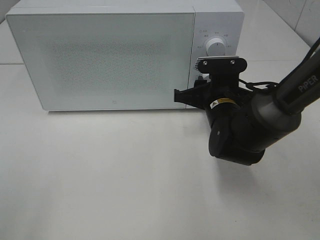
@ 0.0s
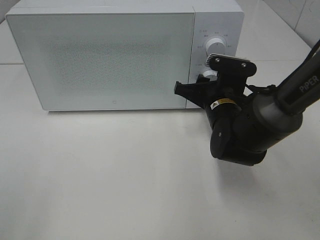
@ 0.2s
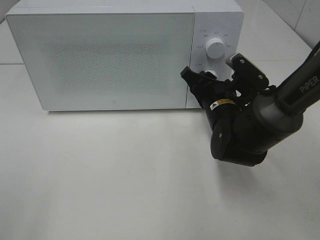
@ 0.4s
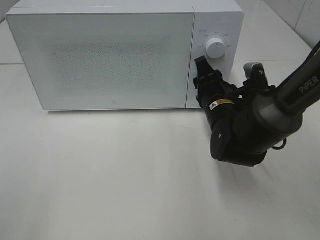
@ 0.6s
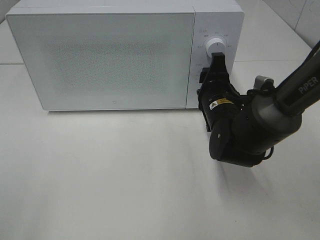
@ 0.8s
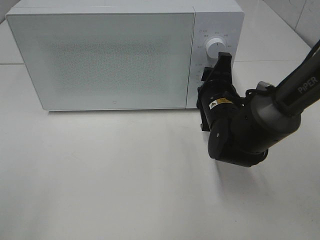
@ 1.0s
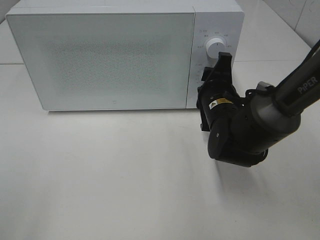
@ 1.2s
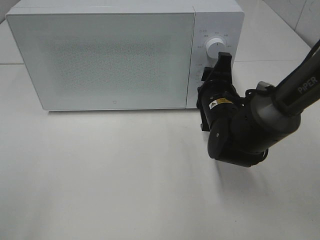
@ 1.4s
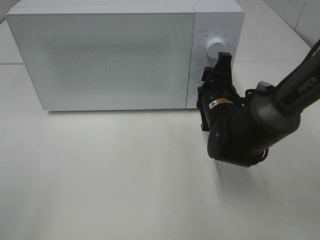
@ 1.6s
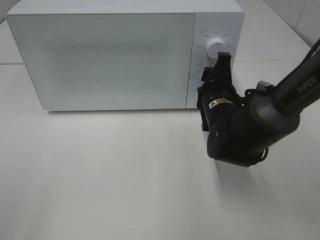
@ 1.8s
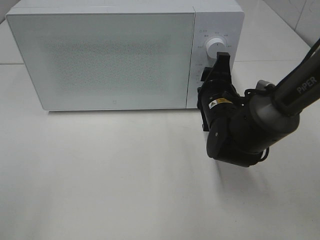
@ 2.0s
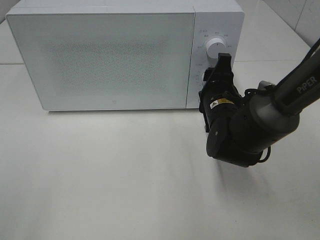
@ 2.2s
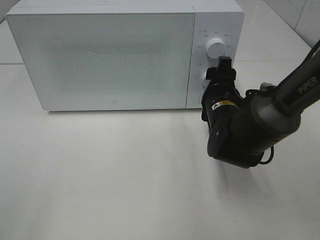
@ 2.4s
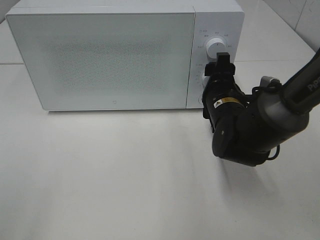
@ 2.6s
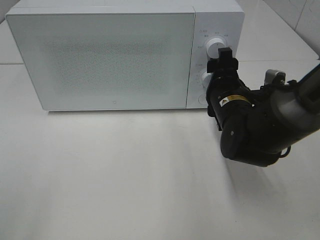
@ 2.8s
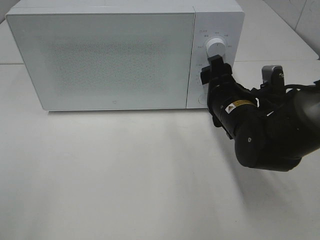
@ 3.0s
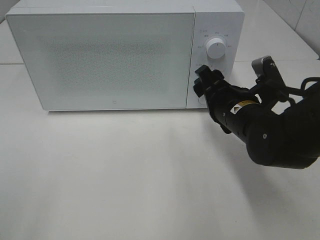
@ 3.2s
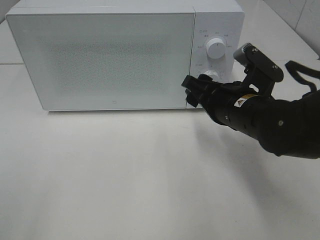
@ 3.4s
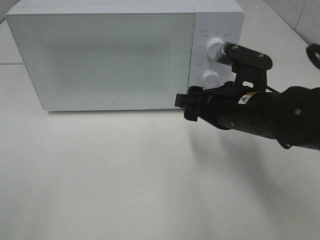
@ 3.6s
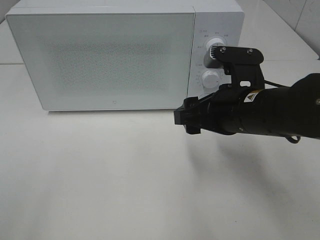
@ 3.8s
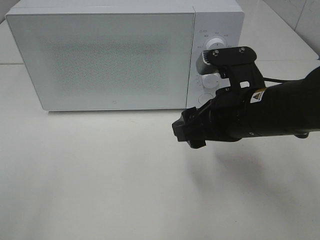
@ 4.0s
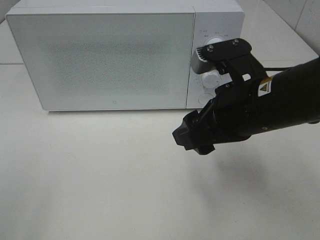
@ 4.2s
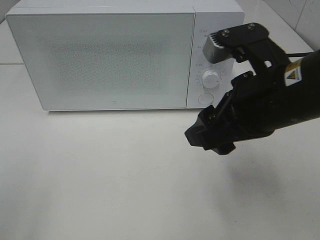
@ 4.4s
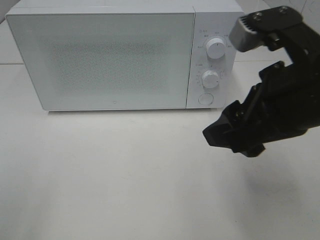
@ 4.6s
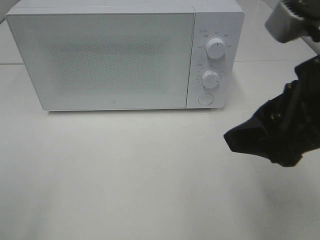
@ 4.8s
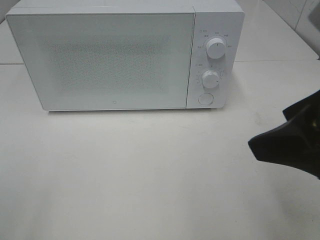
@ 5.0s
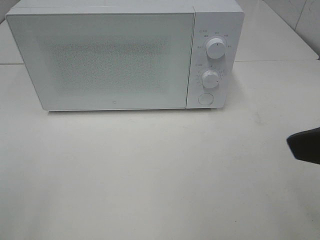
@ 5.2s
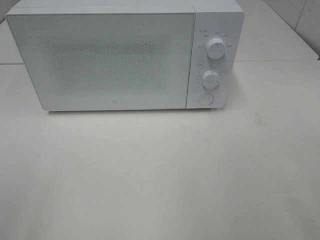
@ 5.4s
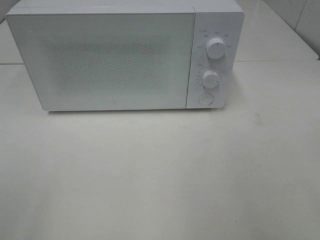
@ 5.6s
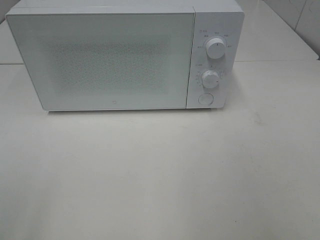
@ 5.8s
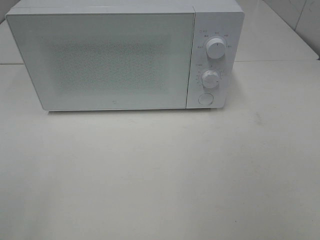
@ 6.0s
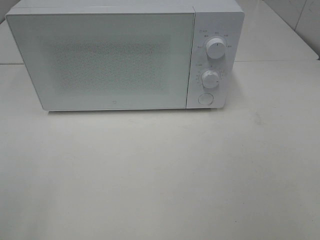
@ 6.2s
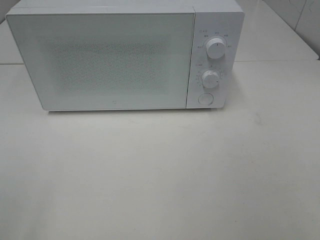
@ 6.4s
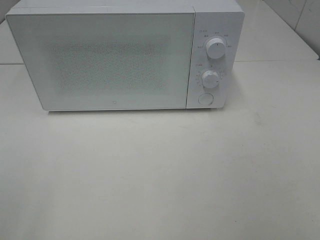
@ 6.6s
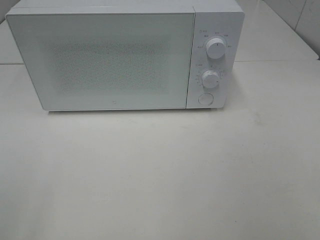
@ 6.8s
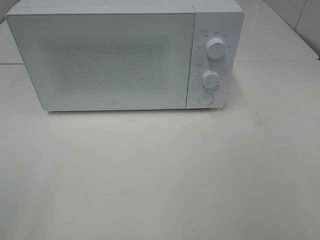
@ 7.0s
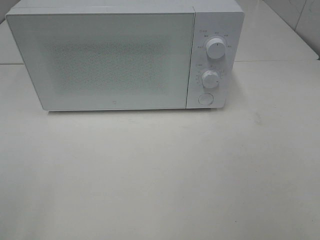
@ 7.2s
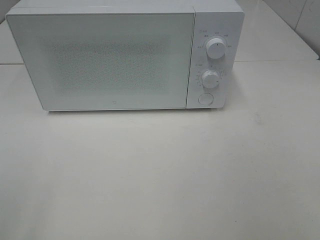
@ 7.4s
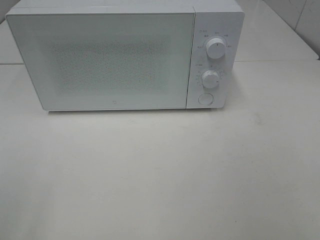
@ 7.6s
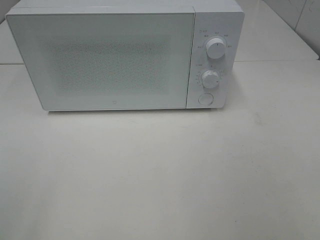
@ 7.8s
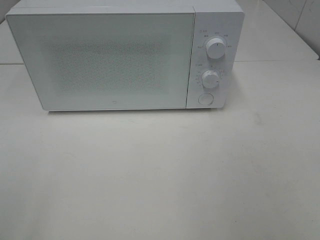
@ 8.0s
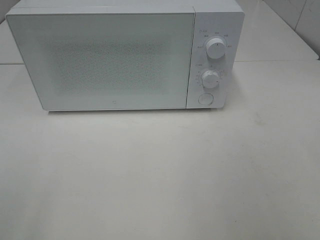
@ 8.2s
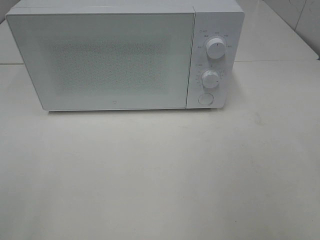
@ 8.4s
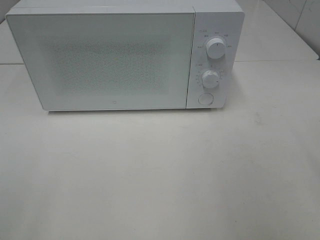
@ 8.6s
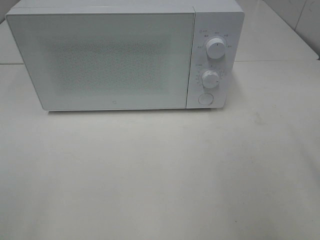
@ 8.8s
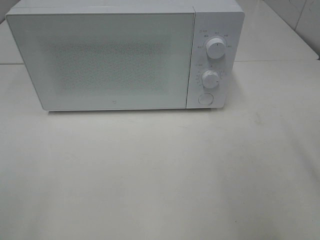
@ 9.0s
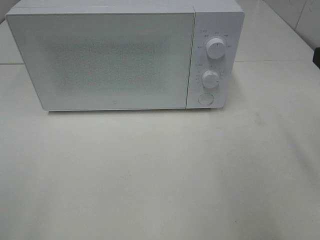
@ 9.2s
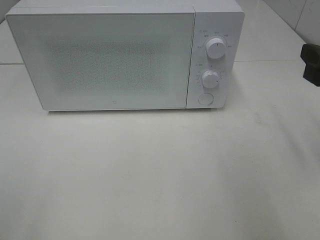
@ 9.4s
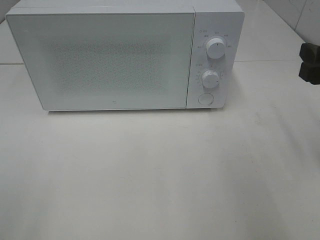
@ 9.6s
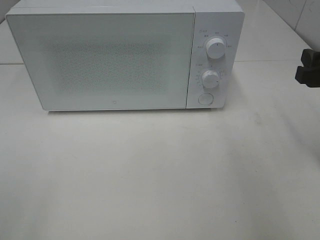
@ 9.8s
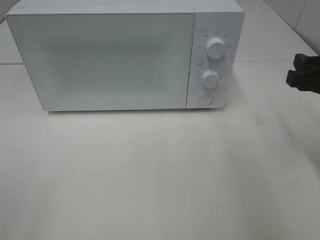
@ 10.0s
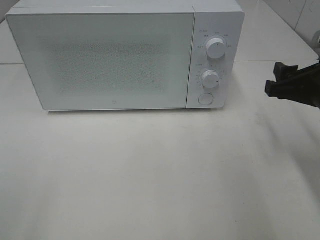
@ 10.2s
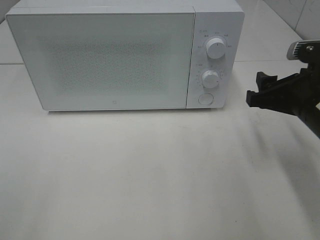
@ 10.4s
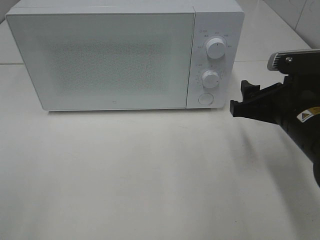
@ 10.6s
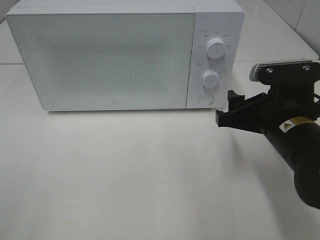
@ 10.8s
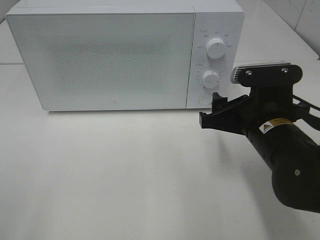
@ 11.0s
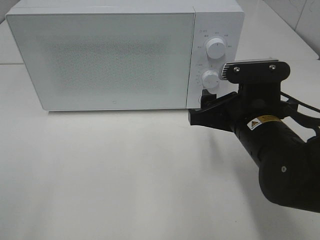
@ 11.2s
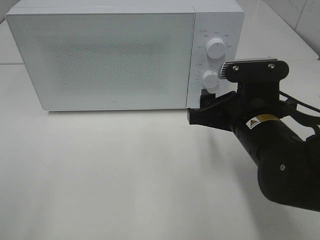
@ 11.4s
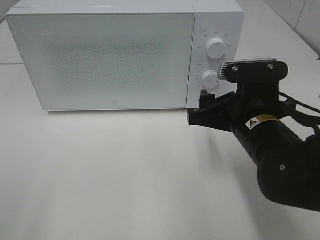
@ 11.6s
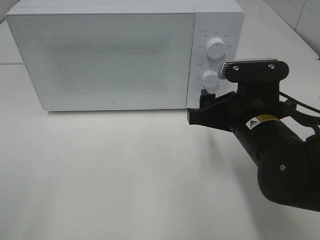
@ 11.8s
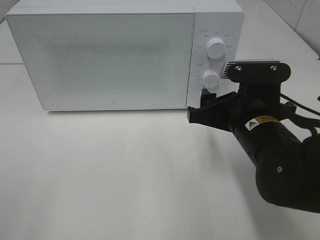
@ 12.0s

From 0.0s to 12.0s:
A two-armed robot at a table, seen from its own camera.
Task of the whole recording: Heat the burger.
Step, from 0.0s to 2.2s: Right hand: twist timer button.
From 3.0s to 4.4s: The right gripper shifts about 15 cm upward and backward.
From 4.4s to 6.0s: The right gripper is displaced backward and to the right by roughly 25 cm.
From 9.0s to 10.4s: The right gripper shifts some 15 cm downward, forward and to the left.
From 10.4s to 12.0s: The right gripper goes approximately 10 cm to the left.

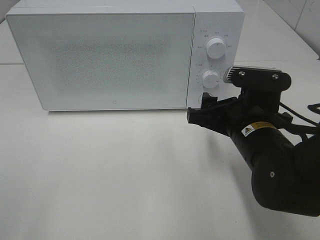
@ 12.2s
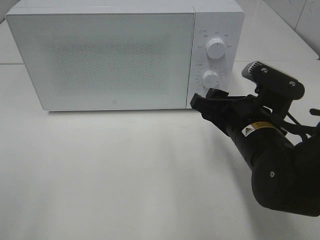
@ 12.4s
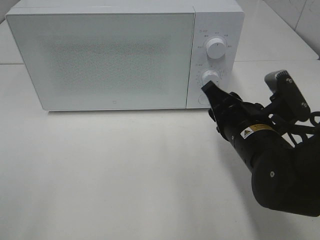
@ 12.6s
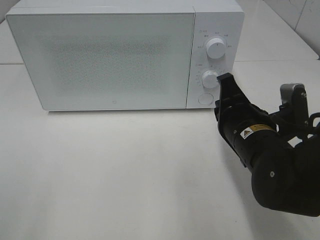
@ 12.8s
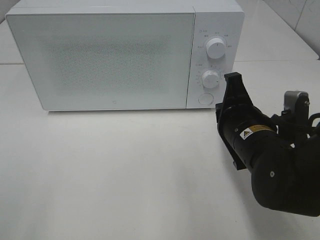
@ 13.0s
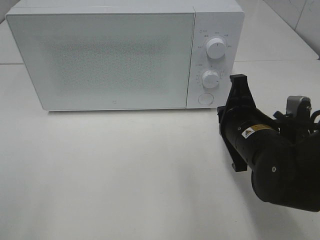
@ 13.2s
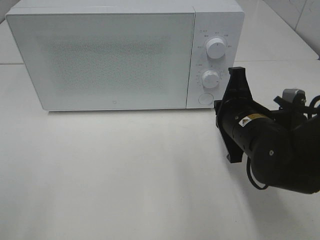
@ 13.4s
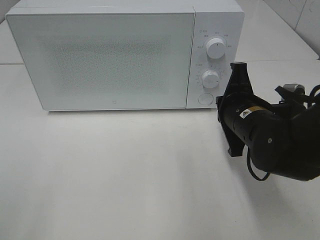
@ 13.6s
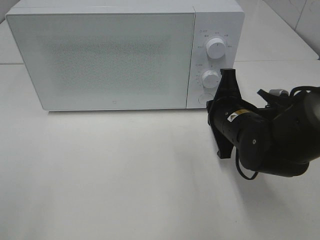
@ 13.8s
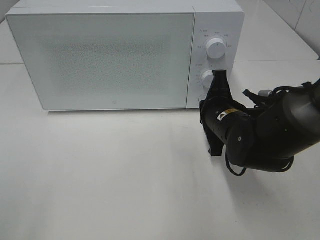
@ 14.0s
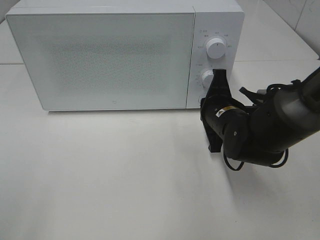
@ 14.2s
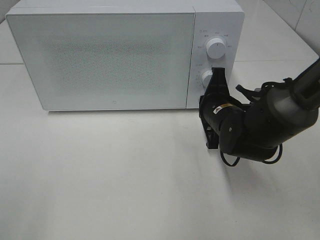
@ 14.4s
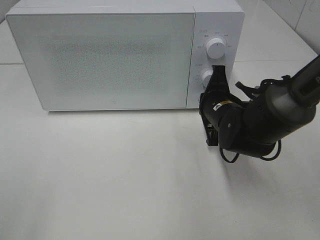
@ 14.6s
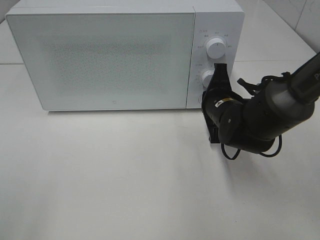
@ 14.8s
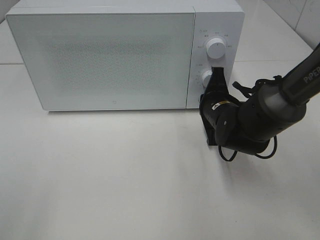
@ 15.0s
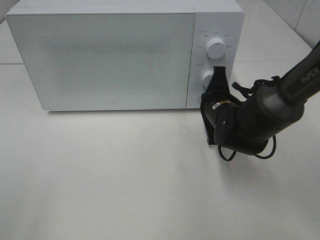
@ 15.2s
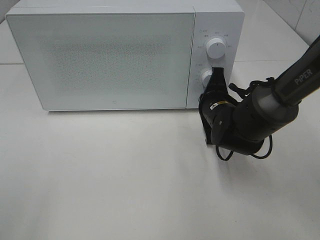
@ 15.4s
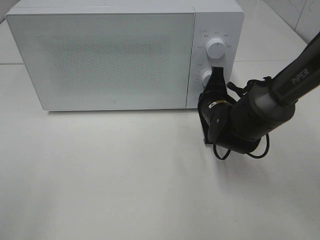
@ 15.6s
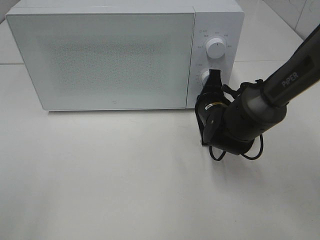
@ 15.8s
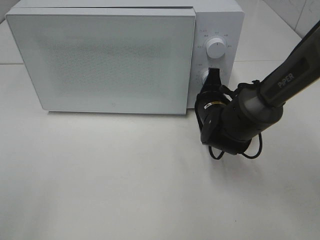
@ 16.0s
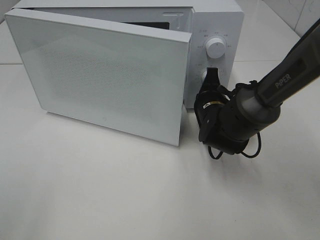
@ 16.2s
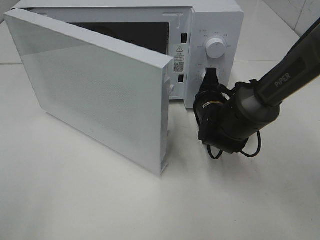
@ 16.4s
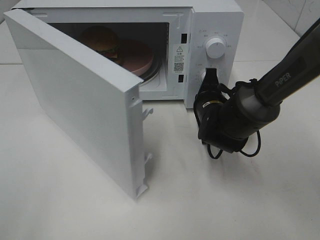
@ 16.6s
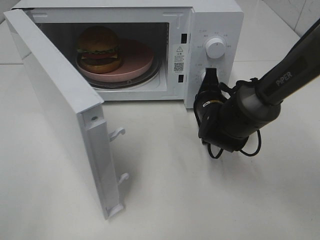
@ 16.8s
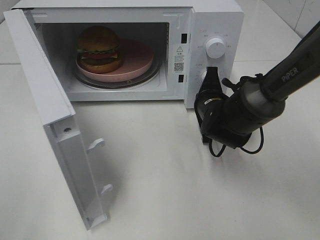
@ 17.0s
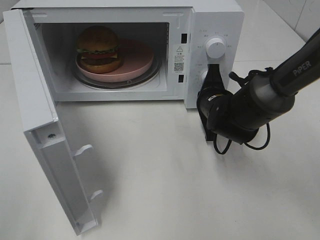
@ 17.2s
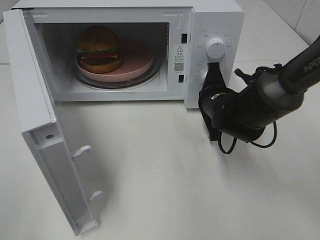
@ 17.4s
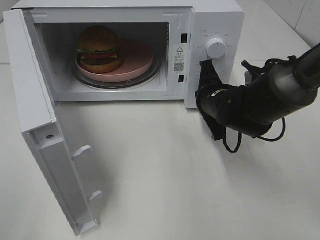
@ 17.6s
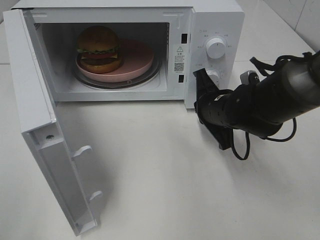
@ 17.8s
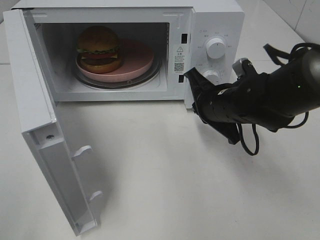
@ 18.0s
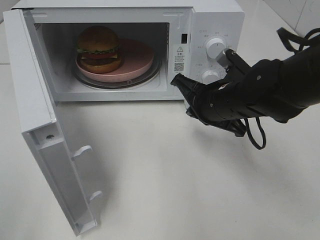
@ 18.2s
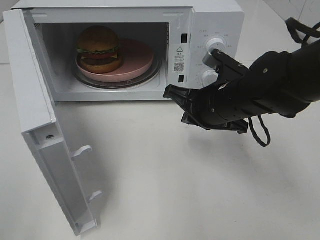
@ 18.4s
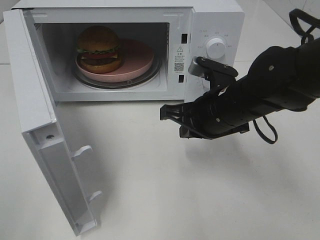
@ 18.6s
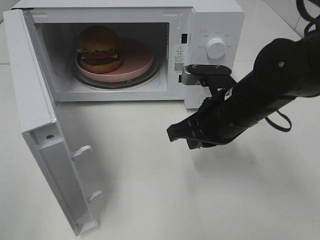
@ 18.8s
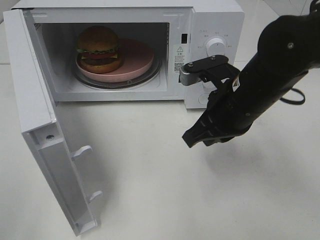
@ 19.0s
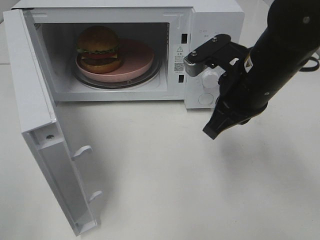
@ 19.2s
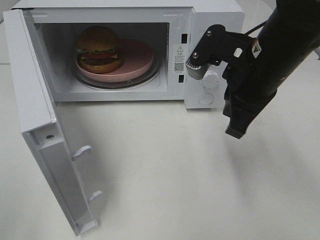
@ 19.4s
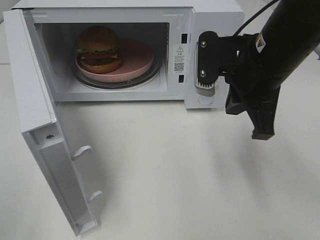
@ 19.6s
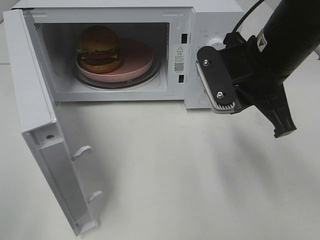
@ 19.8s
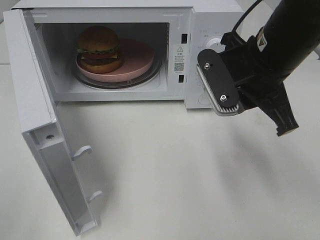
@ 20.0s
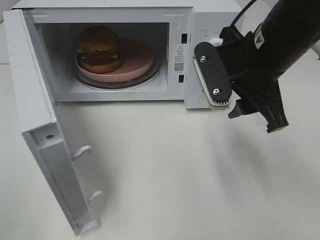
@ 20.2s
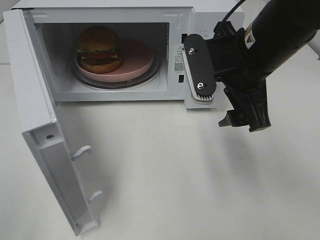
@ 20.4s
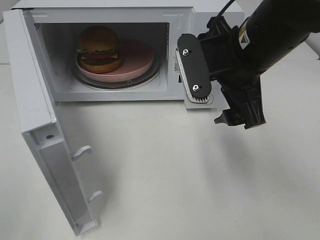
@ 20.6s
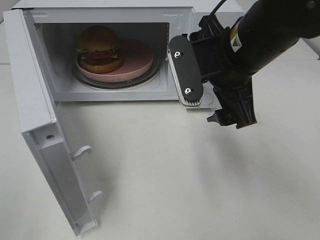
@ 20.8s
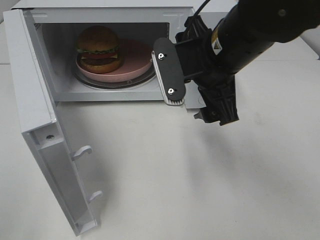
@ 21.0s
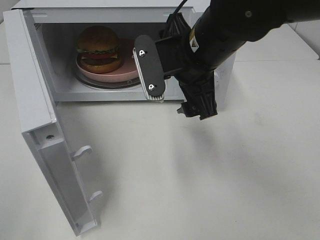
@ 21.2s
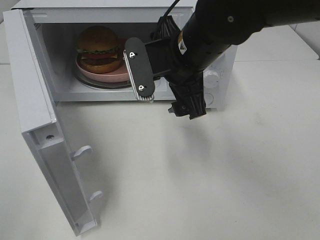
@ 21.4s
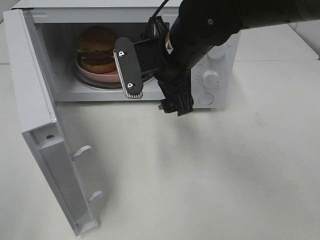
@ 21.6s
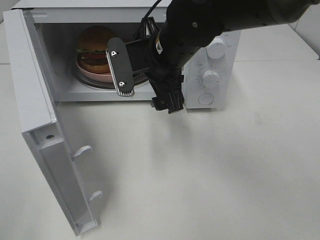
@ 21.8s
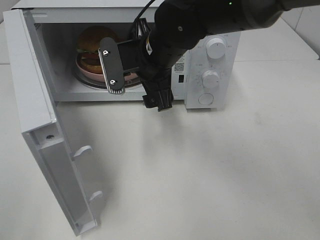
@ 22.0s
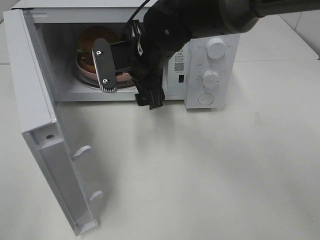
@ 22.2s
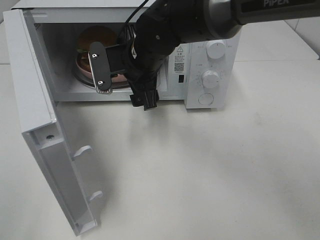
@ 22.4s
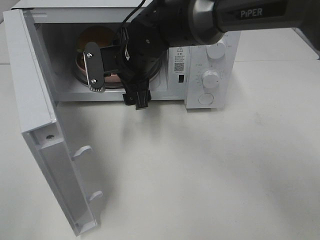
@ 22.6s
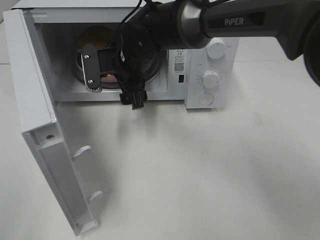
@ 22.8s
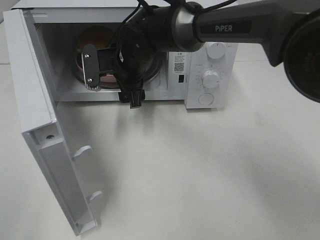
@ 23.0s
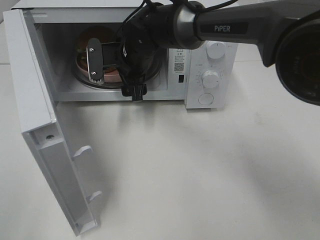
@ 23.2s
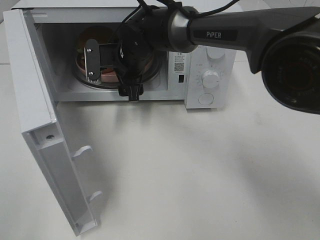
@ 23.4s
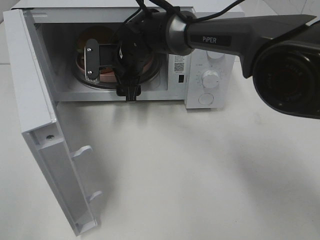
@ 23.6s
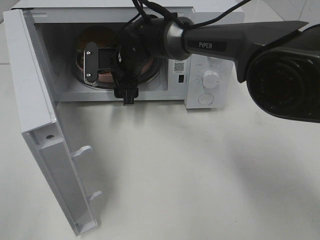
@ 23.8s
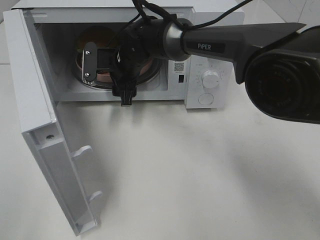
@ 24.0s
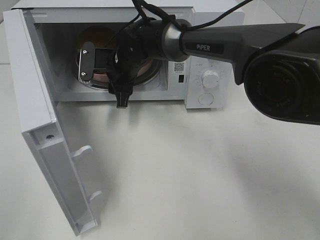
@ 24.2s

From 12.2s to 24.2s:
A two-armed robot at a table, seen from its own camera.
Task of the whole recording: Heat the burger.
Step, from 12.2s to 17.4s: Right hand: press the switch.
From 12.2s to 13.8s: The right gripper changes place by about 5 cm, and closes its fingers.
From 13.8s to 15.2s: The right gripper shifts roughly 5 cm forward.
From 16.6s to 18.2s: The right gripper shifts some 10 cm upward and backward.
From 18.2s to 19.8s: The right gripper goes approximately 10 cm upward.
From 19.8s to 21.2s: The right gripper is displaced to the left by some 10 cm, and opens.
From 21.2s to 22.6s: The right gripper heads forward, to the left and downward, covering about 15 cm.
From 22.6s to 24.2s: The right gripper moves forward, roughly 5 cm, and closes its fingers.
